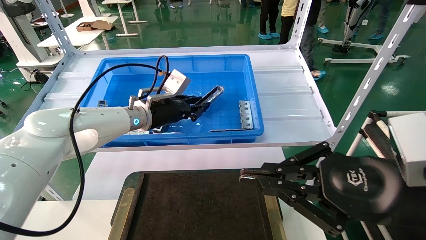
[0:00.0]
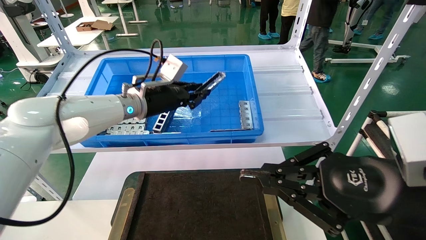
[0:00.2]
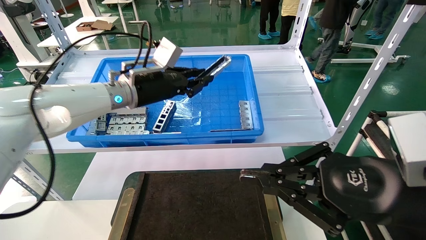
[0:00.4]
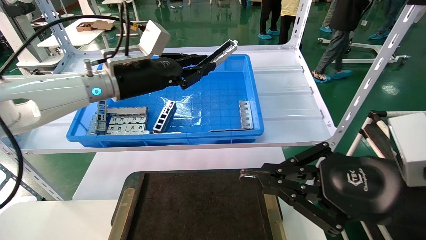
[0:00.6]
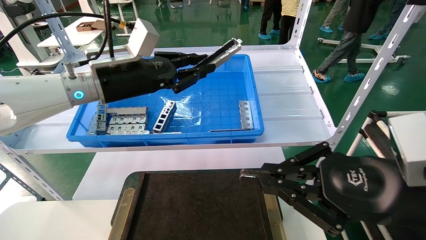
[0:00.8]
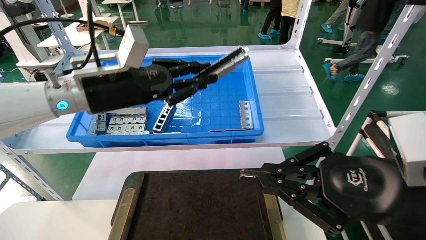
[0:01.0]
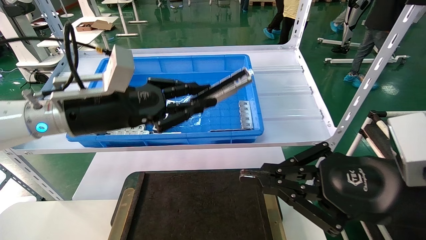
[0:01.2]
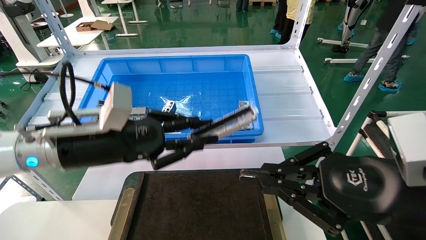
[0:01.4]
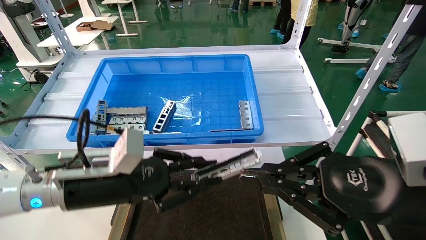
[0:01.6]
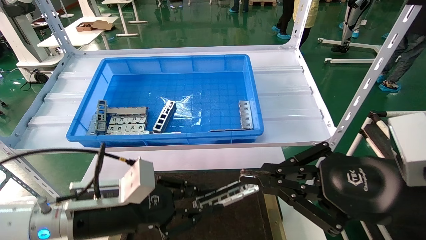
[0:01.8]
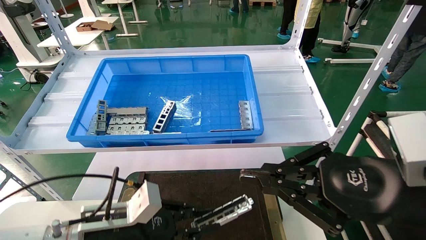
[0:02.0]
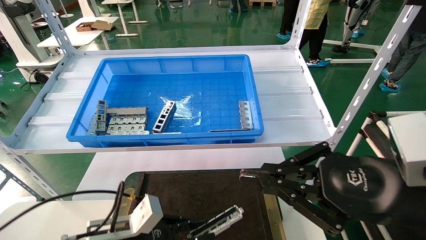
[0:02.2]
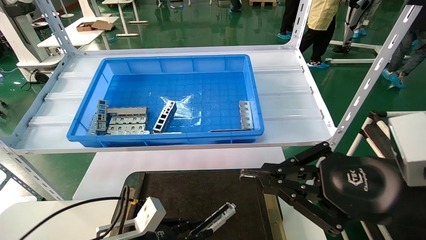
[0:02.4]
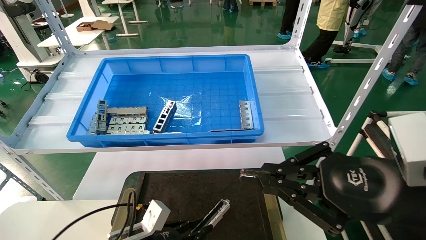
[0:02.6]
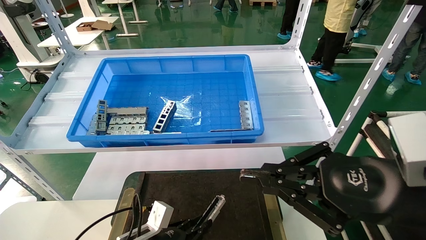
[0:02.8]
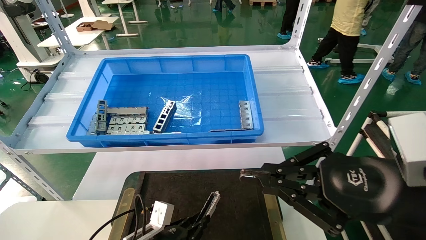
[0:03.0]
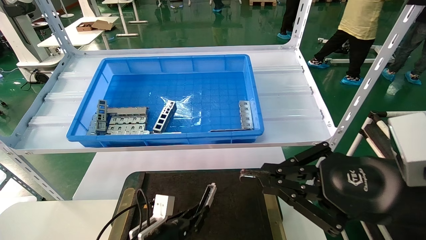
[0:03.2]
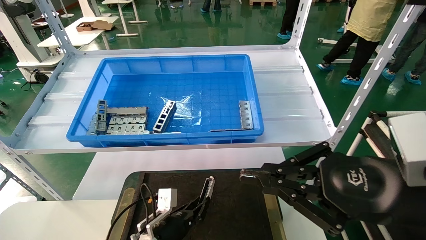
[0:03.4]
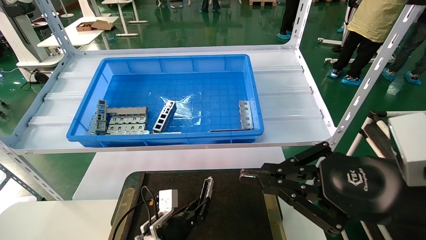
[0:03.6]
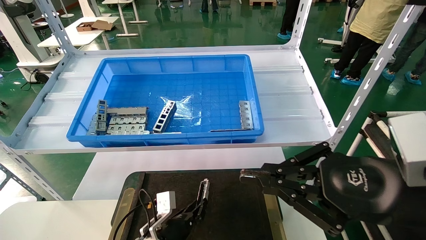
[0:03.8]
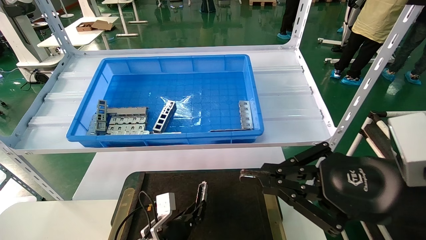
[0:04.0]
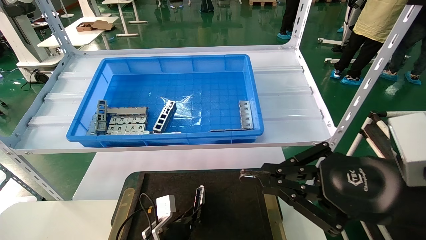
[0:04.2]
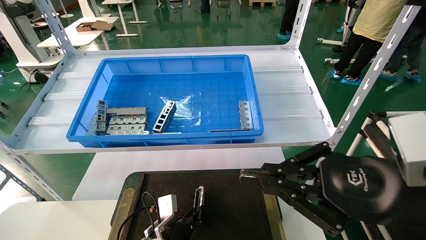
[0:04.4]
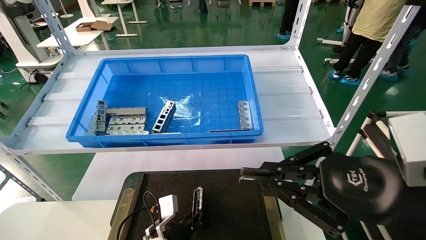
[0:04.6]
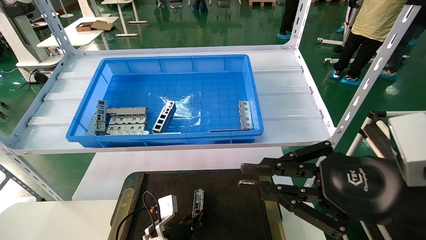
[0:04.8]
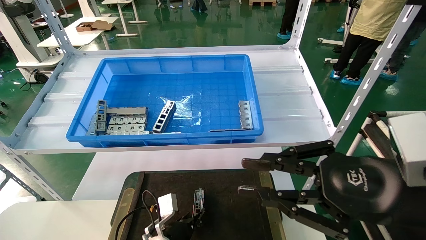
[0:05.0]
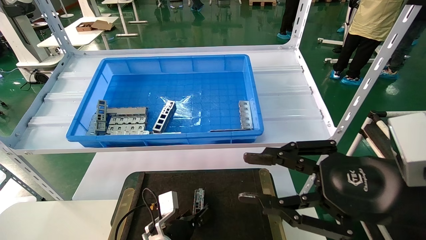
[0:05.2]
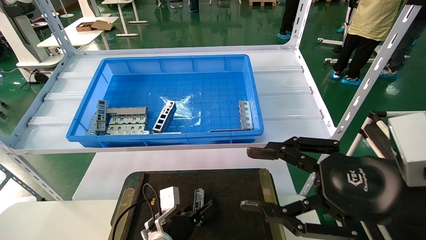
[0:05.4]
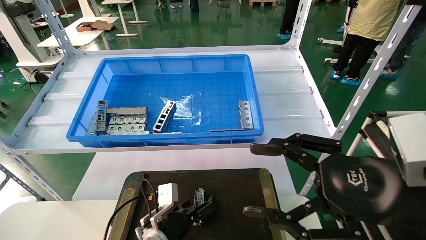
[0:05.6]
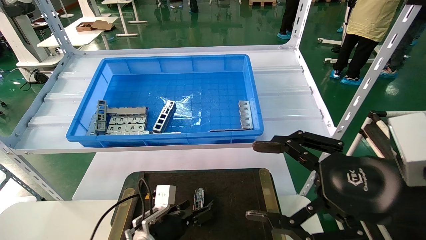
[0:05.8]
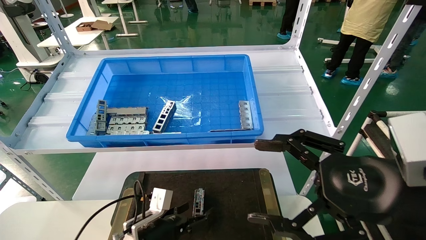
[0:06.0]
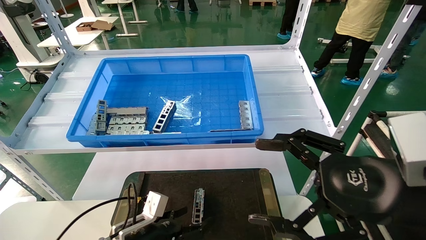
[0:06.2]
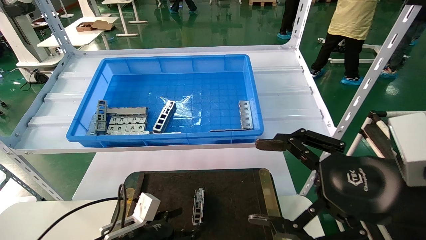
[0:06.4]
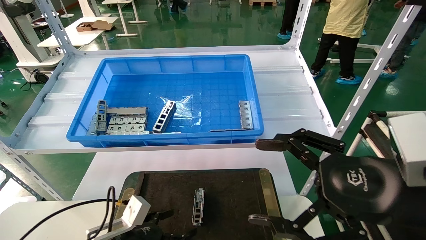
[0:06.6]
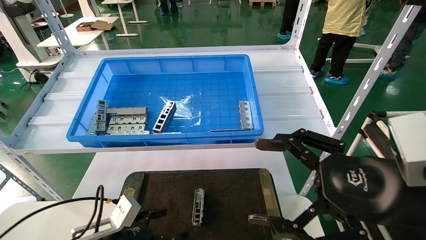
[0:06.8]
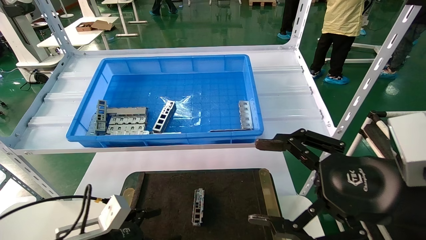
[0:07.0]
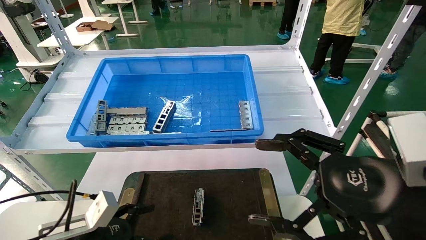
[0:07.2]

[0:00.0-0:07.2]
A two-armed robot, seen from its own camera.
Task of the whole recording: Grasp the part with one hand and place it on the black container.
Step, 0:00.0 to 0:04.6: Place the front USB bracket into the box.
0:00.0 to 0:01.4: The left gripper goes roughly 15 cm backward.
0:01.4 to 0:02.8: The left gripper shifts some 25 cm downward.
0:02.8 to 0:04.4: The left gripper goes about 10 cm forward and to the right.
0:04.4 to 0:05.8: The left gripper ends up some 5 cm from where it was, and opens up; the right gripper opens up.
0:05.8 to 0:07.2: The left gripper travels to the left, backward and upward by some 15 cm.
